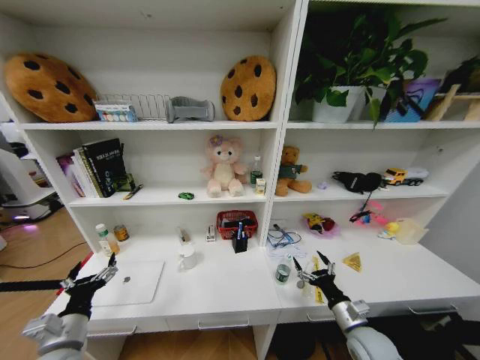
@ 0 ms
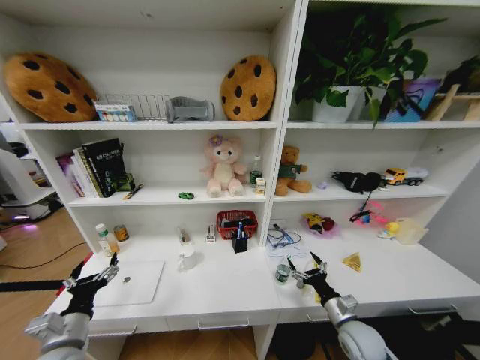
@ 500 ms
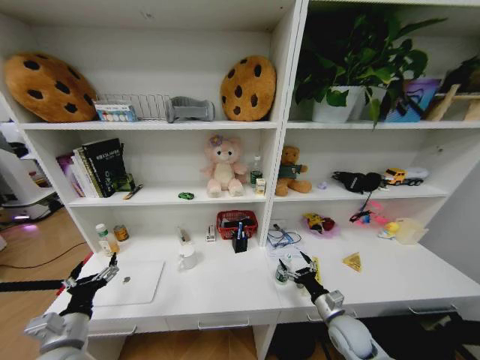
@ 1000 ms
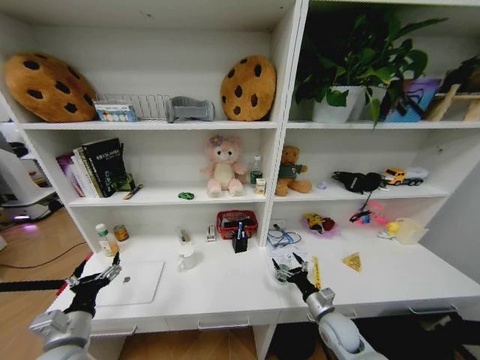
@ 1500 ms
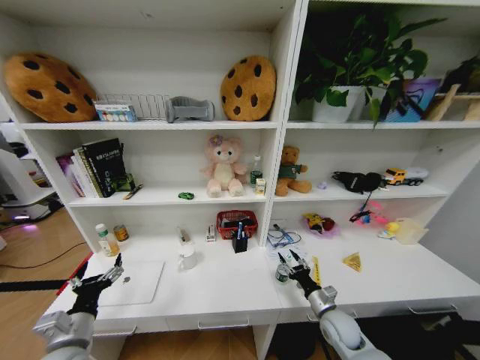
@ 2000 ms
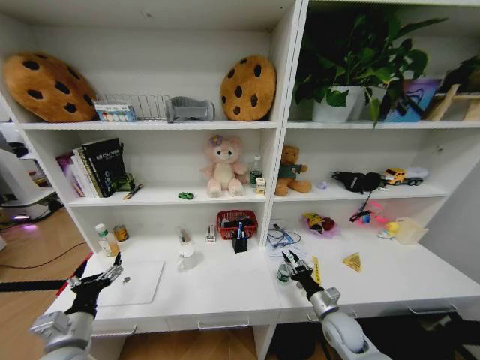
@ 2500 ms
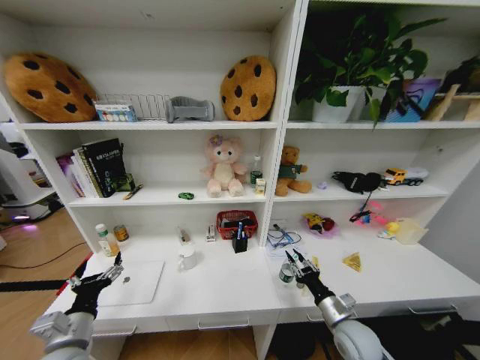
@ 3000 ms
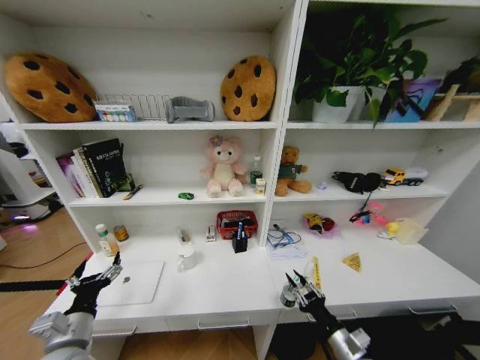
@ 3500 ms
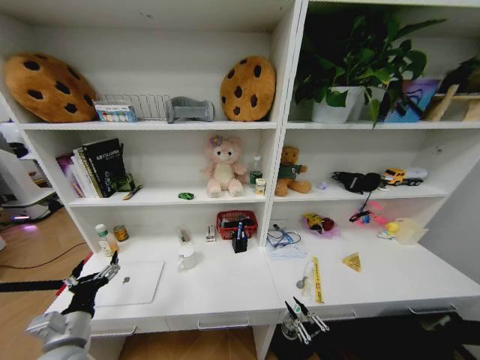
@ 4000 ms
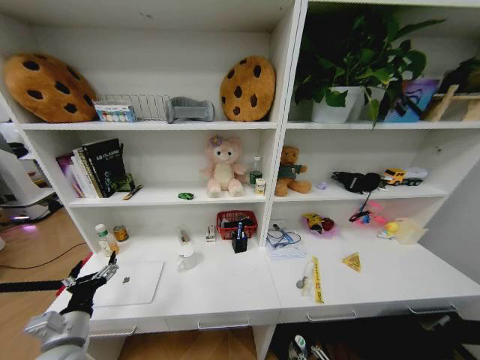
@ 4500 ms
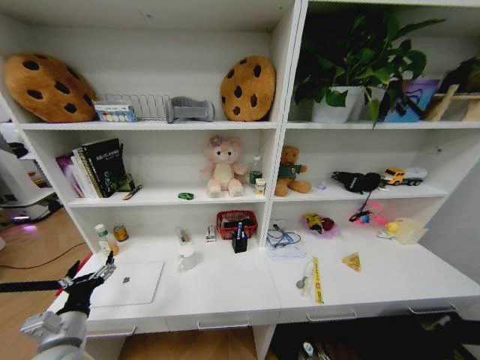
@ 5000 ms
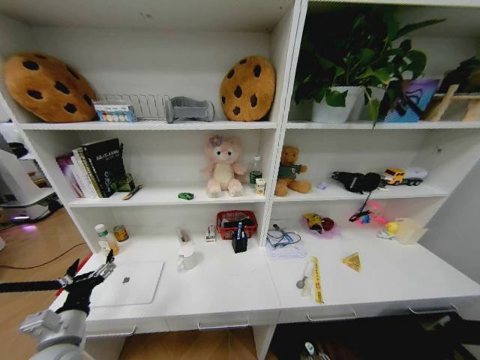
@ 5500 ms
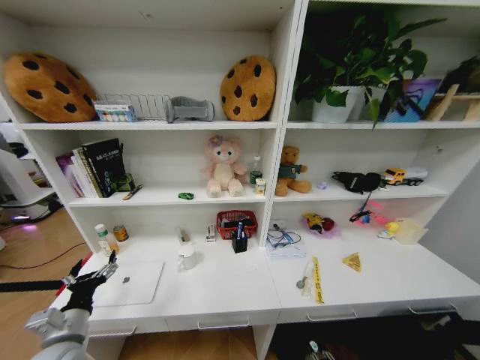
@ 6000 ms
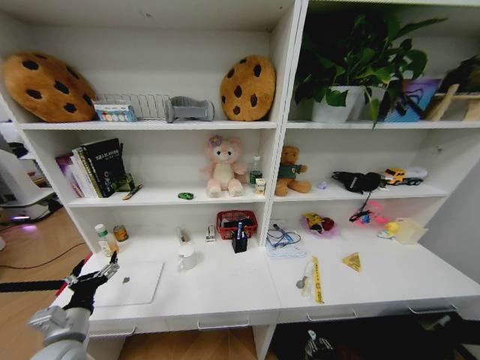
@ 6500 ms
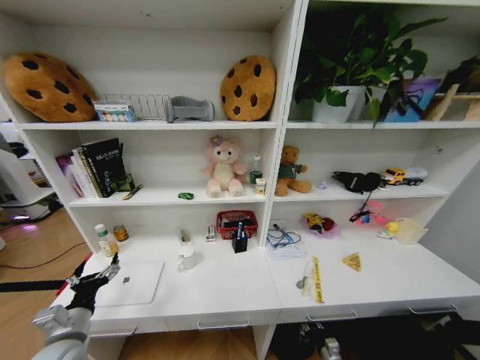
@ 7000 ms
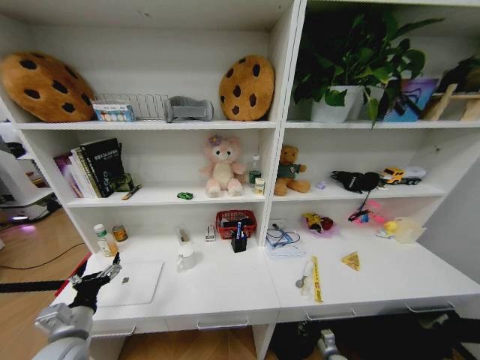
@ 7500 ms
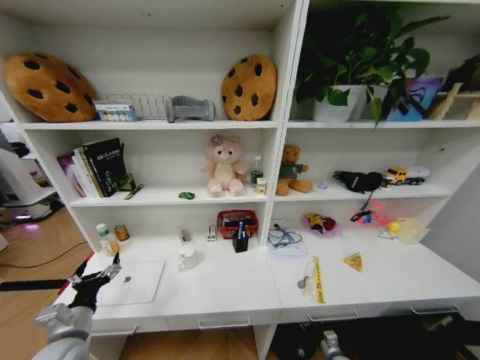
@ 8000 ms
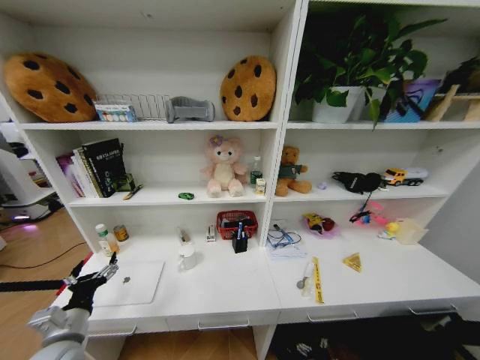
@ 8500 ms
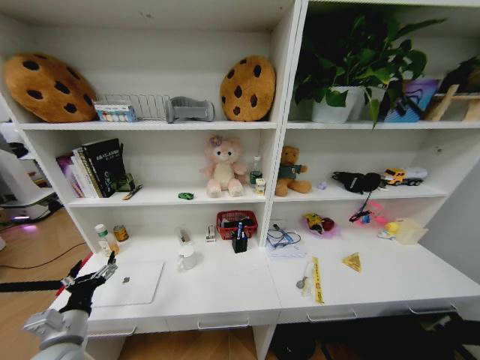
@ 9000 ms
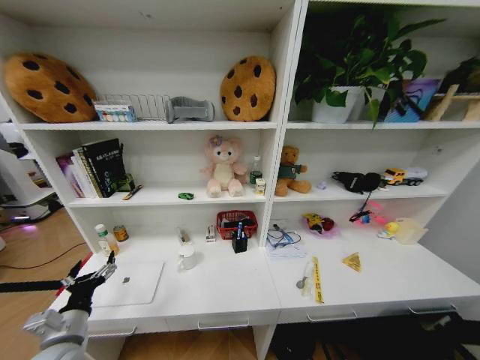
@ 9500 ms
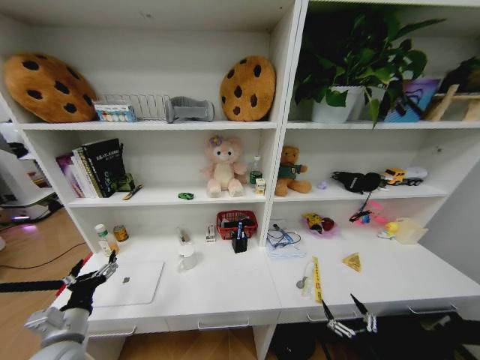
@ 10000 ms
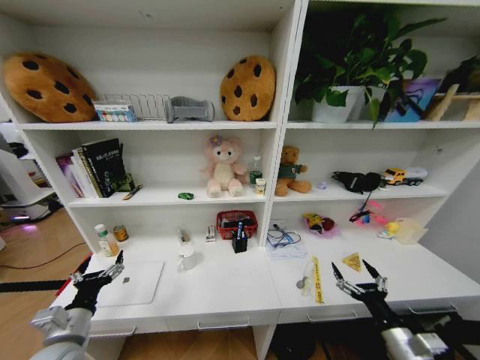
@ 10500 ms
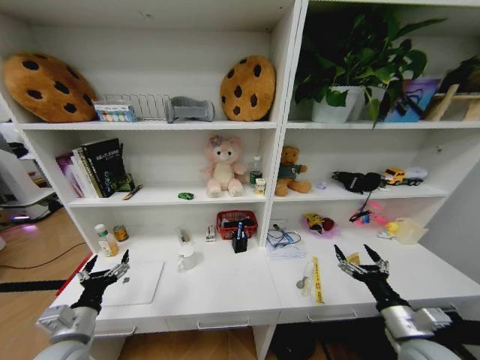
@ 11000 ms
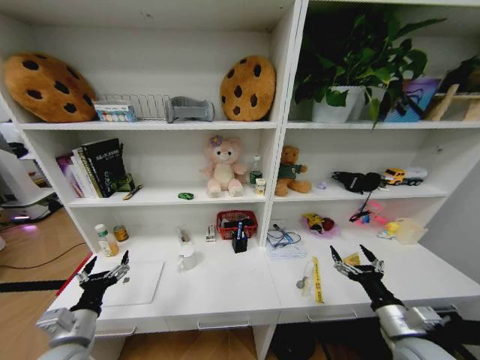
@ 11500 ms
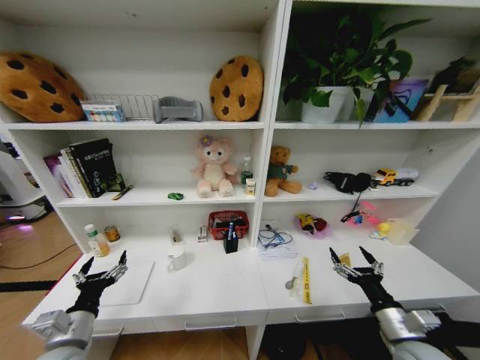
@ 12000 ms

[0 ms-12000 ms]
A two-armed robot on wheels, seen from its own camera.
Task of the whole recording: Organize the objects on the table.
0 ms to 2000 ms: The right gripper goes approximately 5 cm forward.
2000 ms to 4000 ms: The right gripper travels backward by some 20 cm, and closes.
4000 ms to 6000 ms: The right gripper travels downward by roughly 25 cm.
6000 ms to 8000 ms: The right gripper heads forward, covering roughly 15 cm.
8000 ms to 10000 ms: The right gripper shifts roughly 25 cm upward and backward, and opens up.
10000 ms to 12000 ms: The right gripper shifts approximately 15 cm upward and forward.

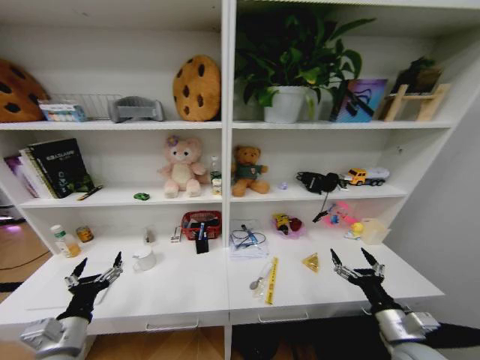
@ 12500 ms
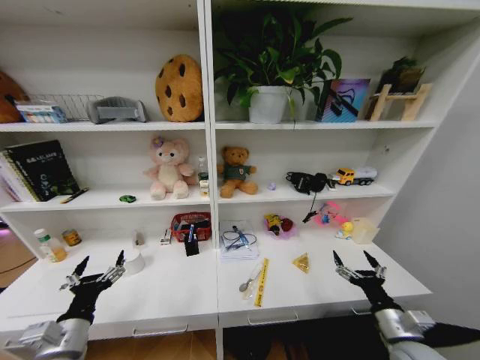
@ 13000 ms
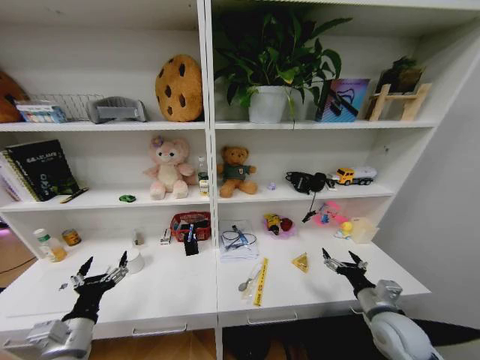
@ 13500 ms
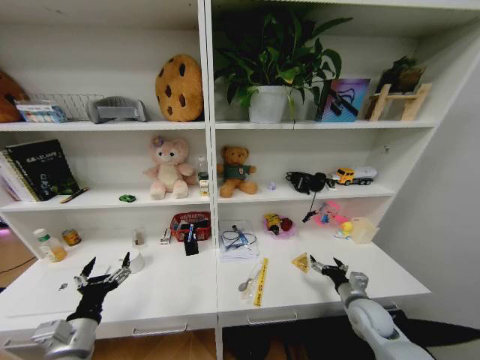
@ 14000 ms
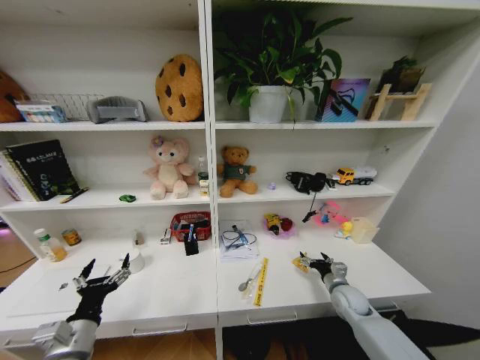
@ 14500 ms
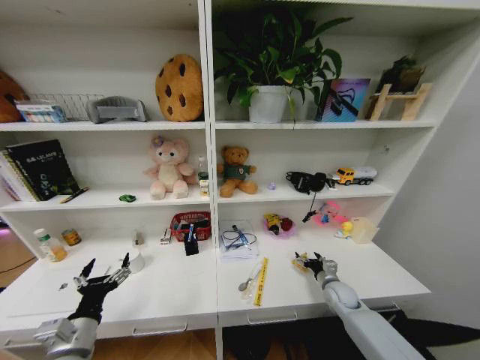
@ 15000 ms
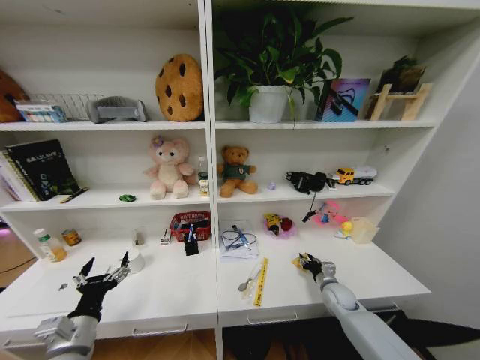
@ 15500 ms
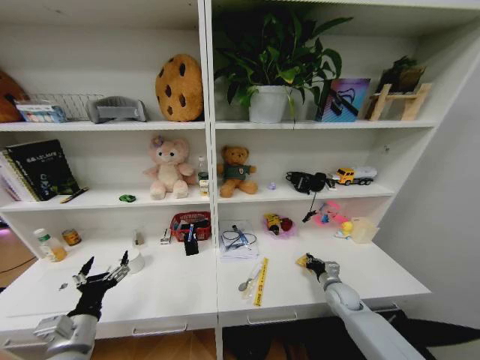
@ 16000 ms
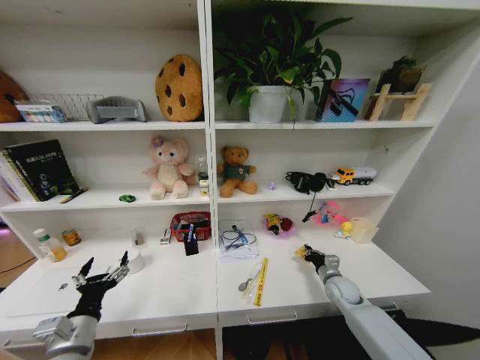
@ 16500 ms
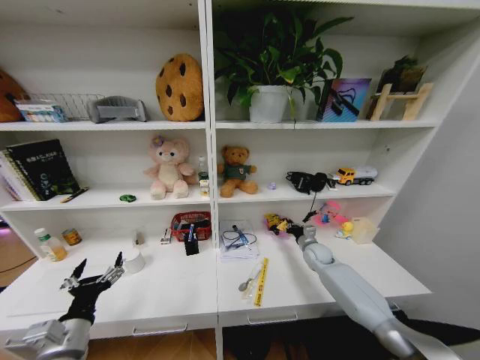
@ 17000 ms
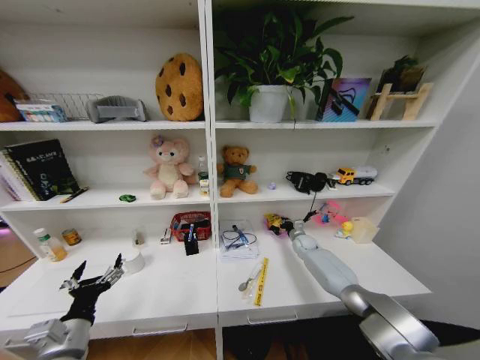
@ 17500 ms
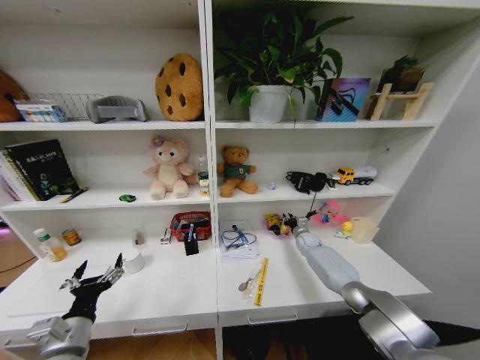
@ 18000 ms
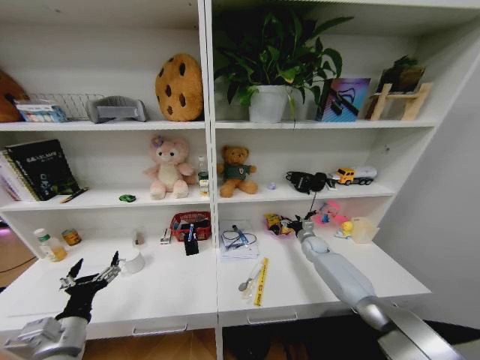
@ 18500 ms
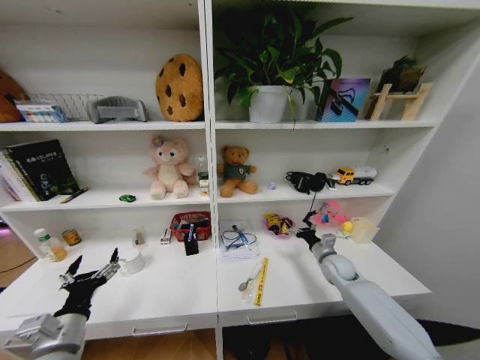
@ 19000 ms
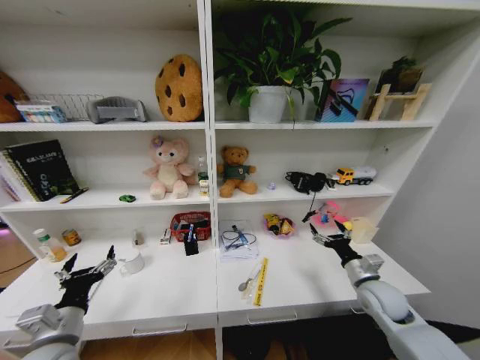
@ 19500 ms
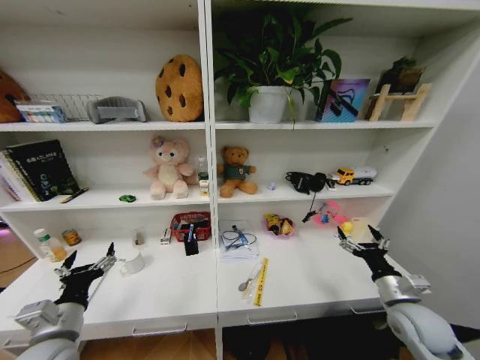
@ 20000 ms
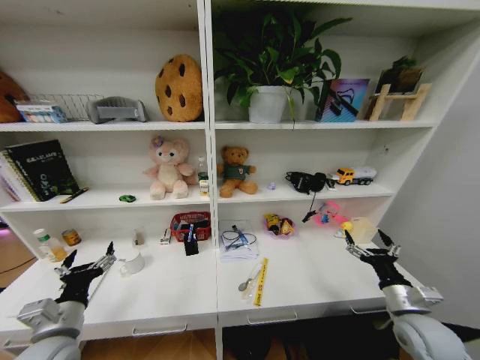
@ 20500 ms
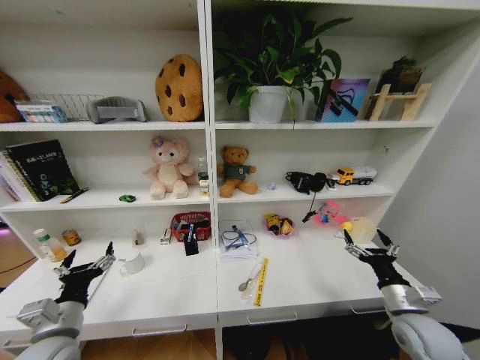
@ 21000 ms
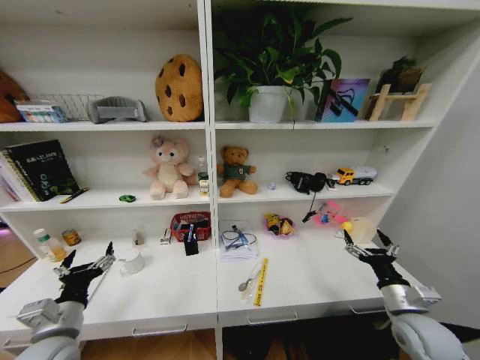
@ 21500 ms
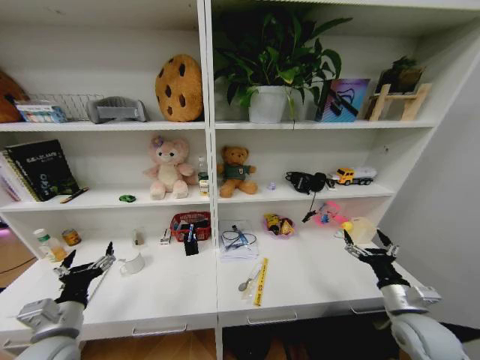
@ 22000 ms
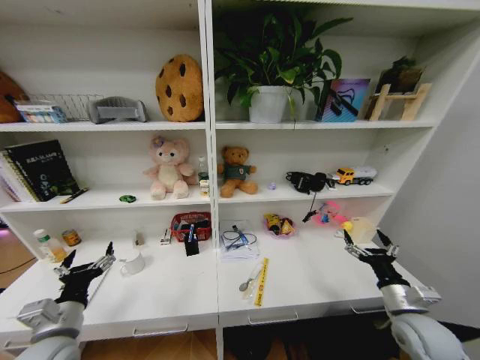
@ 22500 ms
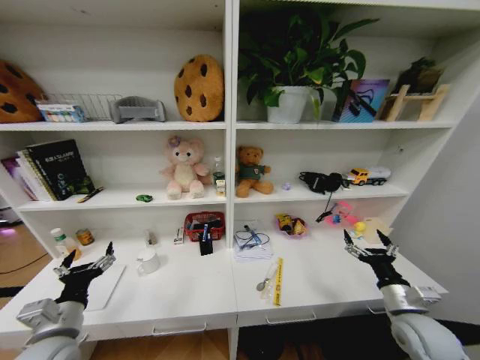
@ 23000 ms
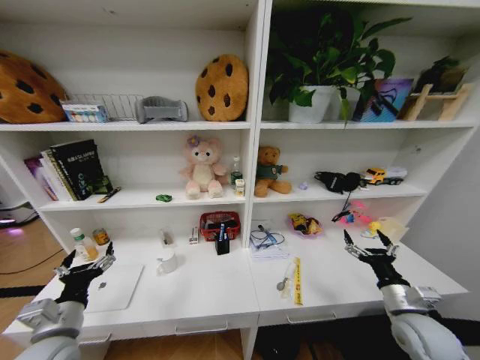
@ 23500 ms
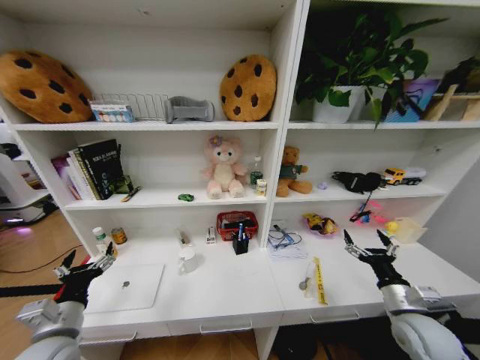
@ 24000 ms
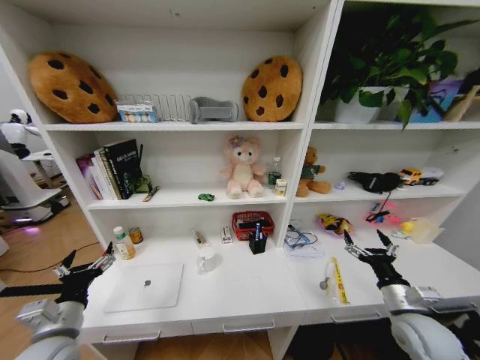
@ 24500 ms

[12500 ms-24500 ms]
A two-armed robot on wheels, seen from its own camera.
Task of the whole recording: Organize the objects on the table.
12500 ms to 14500 ms: The right gripper heads forward and downward, covering some 20 cm.
14500 ms to 16500 ms: The right gripper closes its fingers.
16500 ms to 18500 ms: The right gripper is displaced forward by approximately 15 cm, and opens.
18500 ms to 20500 ms: The right gripper is displaced backward by roughly 30 cm.
20500 ms to 22500 ms: Both grippers stay put.
